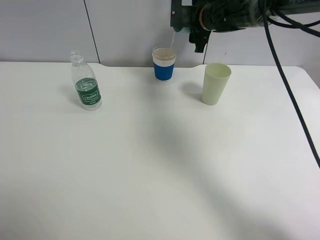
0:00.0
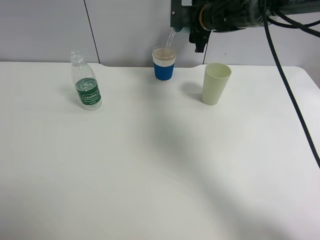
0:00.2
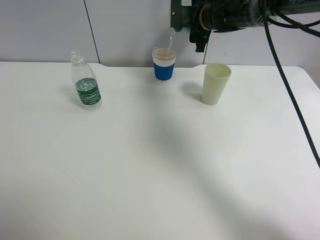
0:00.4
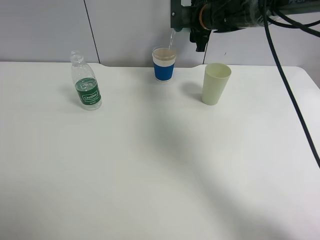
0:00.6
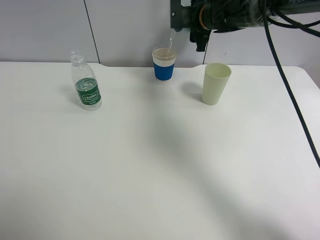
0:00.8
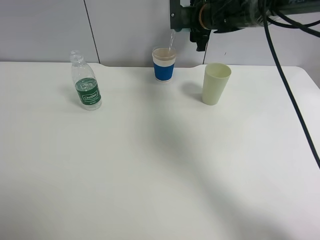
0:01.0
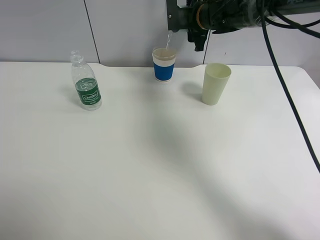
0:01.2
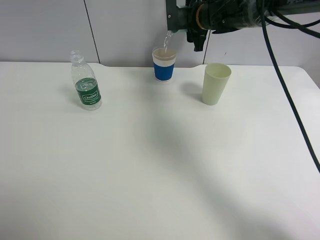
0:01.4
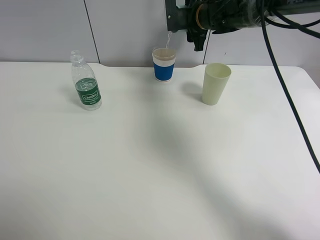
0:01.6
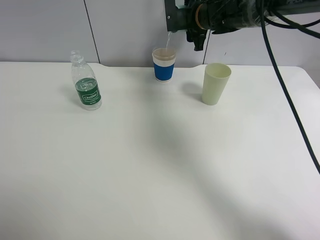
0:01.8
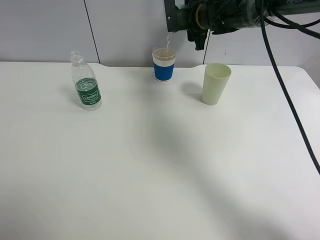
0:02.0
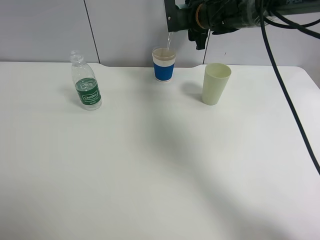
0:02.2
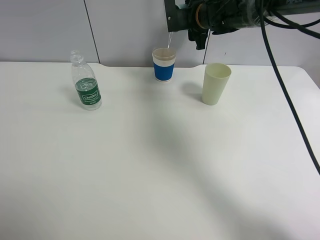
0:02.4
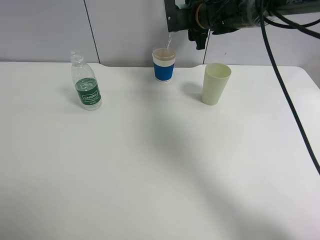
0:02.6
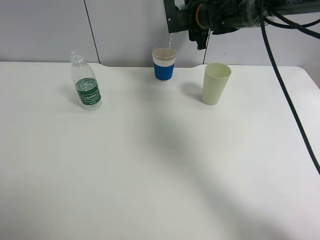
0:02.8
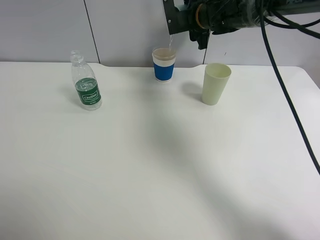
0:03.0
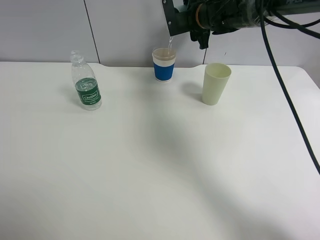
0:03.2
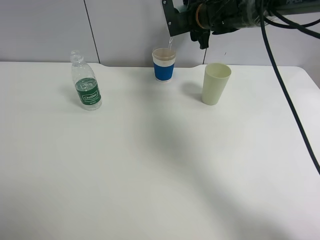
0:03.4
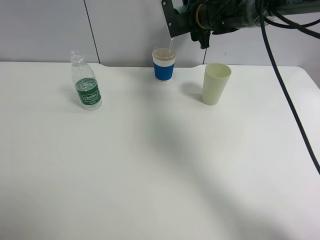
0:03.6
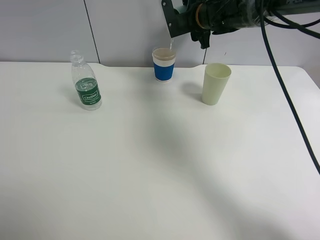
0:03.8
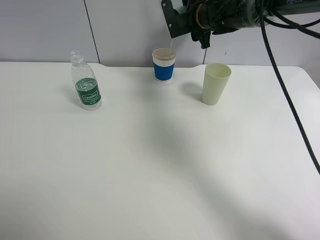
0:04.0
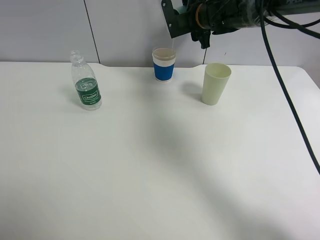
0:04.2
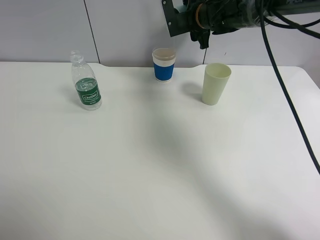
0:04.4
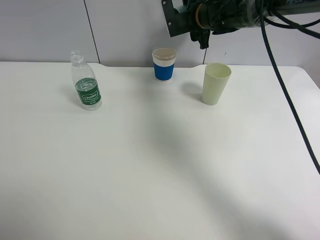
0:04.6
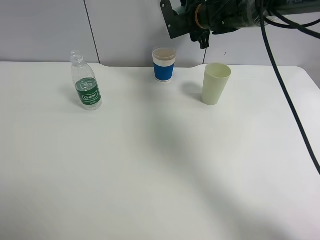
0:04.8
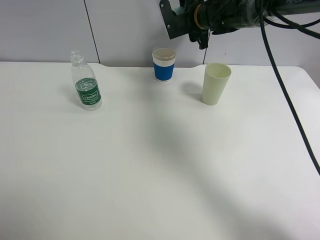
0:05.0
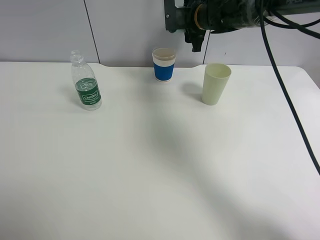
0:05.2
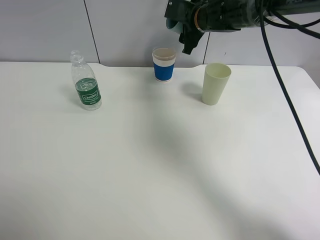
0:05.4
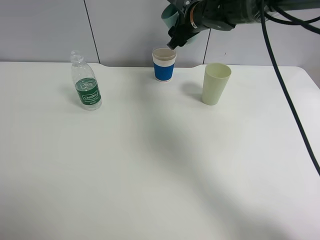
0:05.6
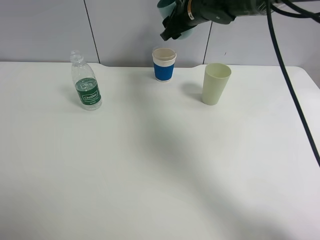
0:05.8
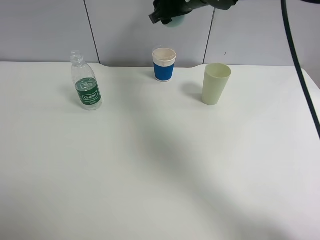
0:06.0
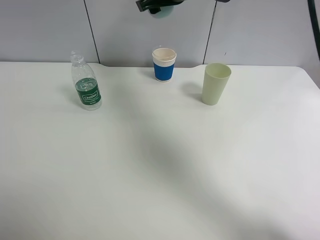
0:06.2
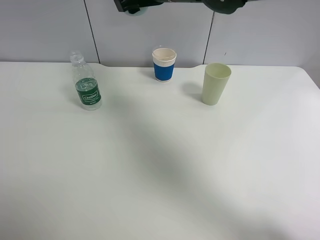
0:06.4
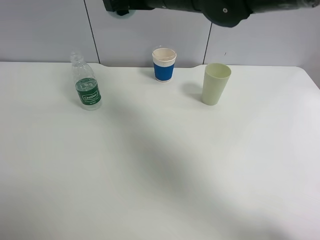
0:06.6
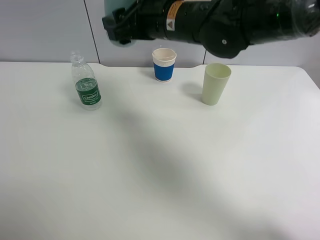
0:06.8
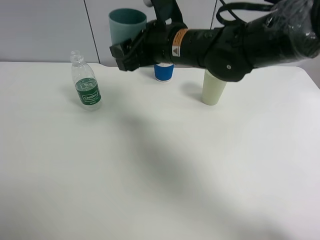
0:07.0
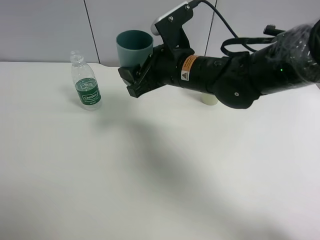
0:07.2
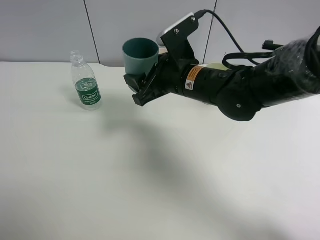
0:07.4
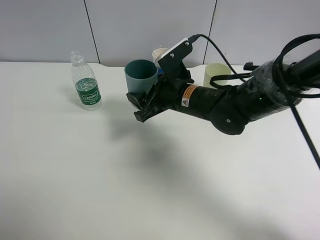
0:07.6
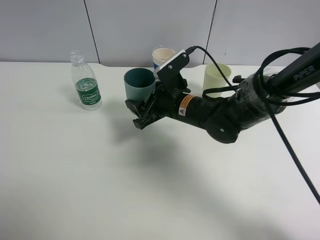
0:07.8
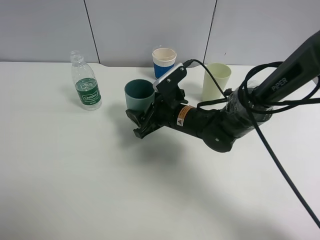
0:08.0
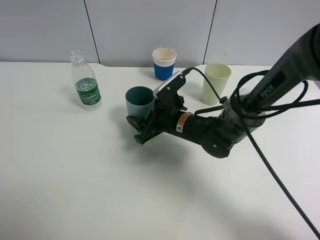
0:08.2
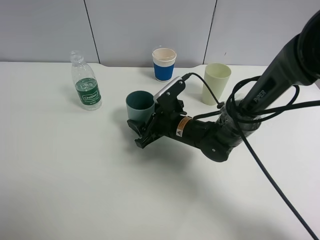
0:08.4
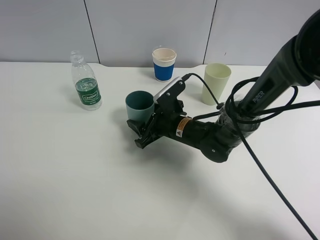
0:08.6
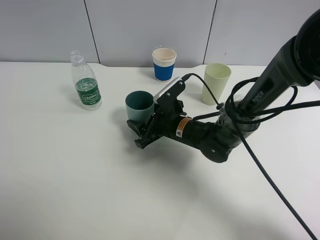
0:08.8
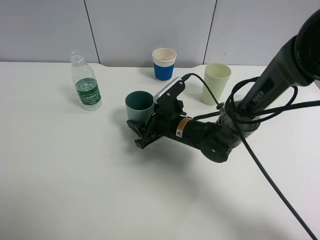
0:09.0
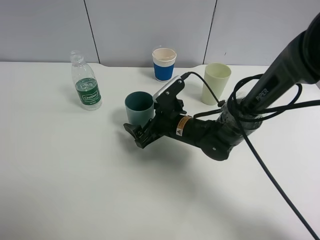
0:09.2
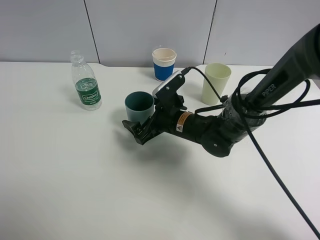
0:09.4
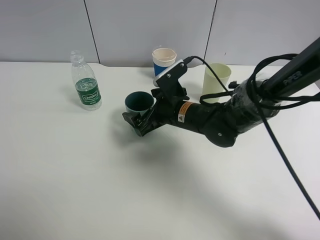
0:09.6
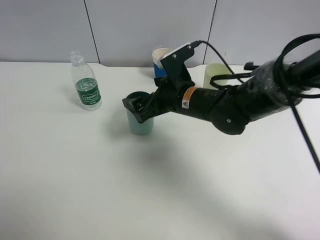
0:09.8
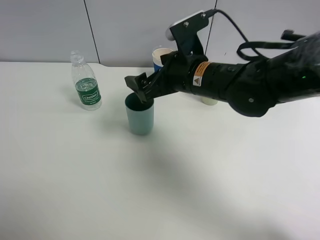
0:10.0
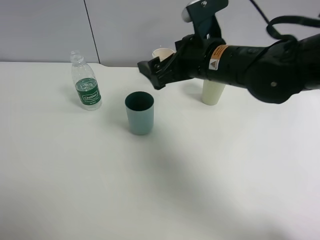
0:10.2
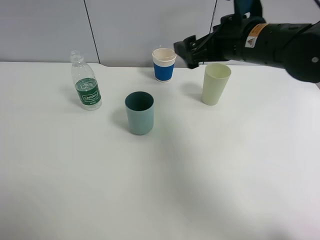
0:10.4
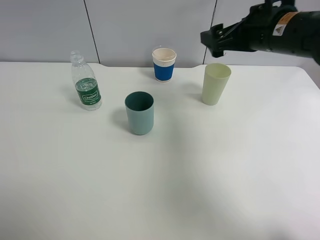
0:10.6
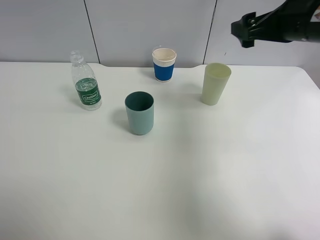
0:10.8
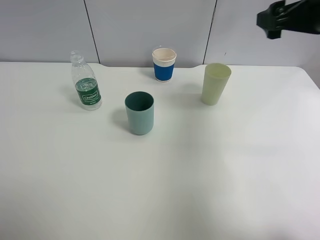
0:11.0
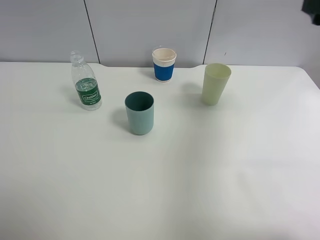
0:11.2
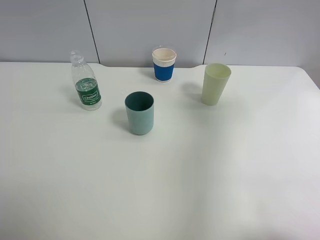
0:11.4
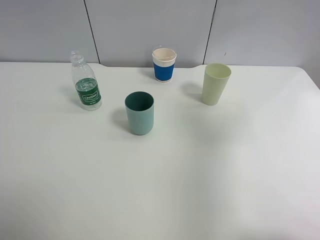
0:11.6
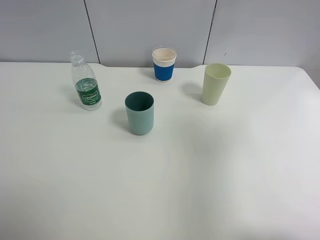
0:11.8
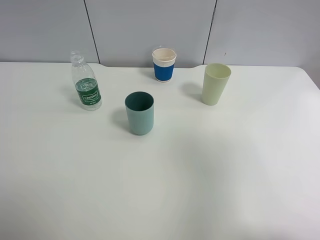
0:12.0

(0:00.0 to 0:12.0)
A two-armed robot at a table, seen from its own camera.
Task of the whole recording: use a clamp to hold the bottle of the drink, pour the beverage into a random cup, then clamp the cup containing the drink and pour the drink into another random cup.
Step, 0:00.0 - 0:05.0: Pour water into the paper cup with right gripper.
Step, 0:05.2 - 0:09.6: Place the blue plastic cup on the table with right gripper.
0:00.0 - 0:03.0: There are only small adjustments of the grippers.
0:04.4 - 0:06.0: The right gripper travels upward and backward by approximately 10 cm.
0:06.0 - 0:07.6: The right gripper heads downward and backward, covering some 20 cm.
0:07.6 - 0:09.0: The right gripper is displaced downward by roughly 10 cm.
0:09.0 - 0:10.4: The right gripper is displaced upward and to the right by roughly 25 cm, and opens up.
0:10.4 - 0:12.0: The right gripper travels backward, to the right and upward by roughly 30 cm.

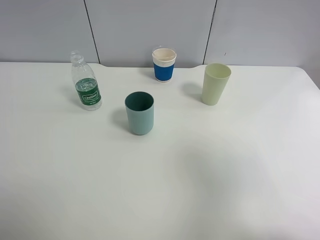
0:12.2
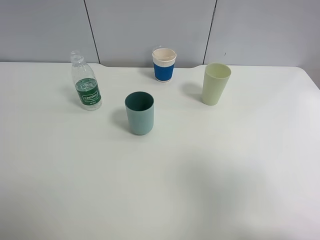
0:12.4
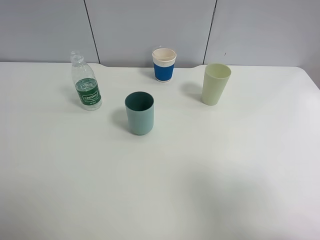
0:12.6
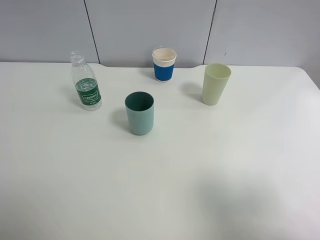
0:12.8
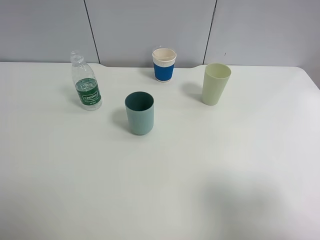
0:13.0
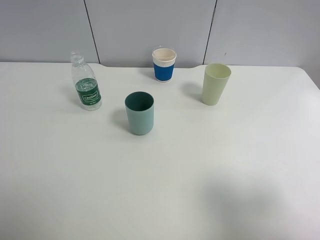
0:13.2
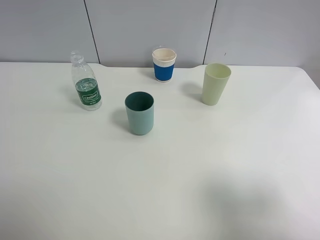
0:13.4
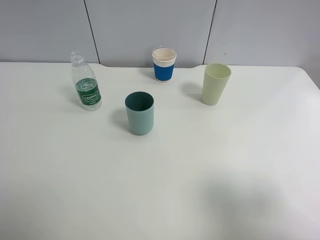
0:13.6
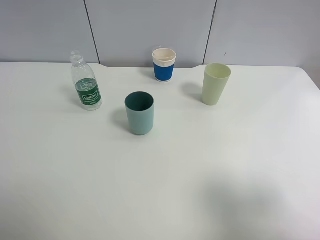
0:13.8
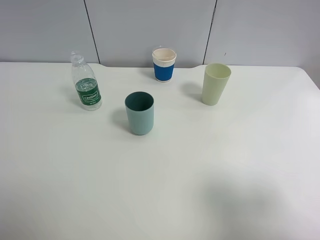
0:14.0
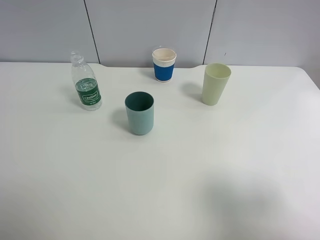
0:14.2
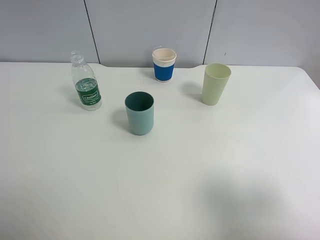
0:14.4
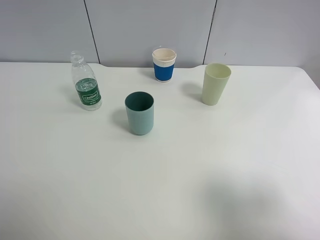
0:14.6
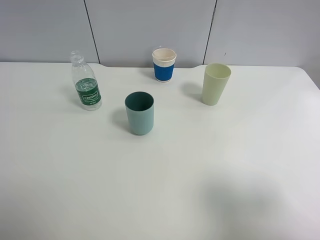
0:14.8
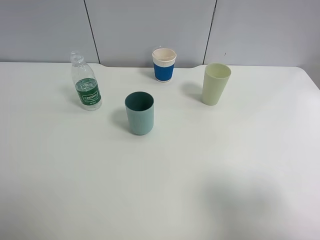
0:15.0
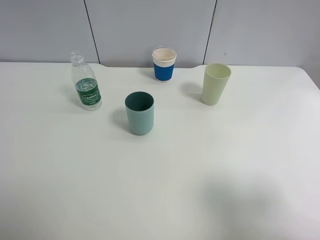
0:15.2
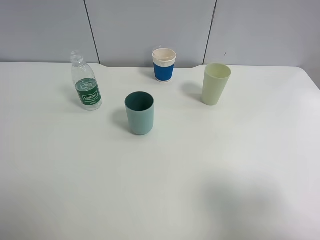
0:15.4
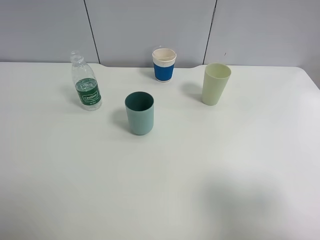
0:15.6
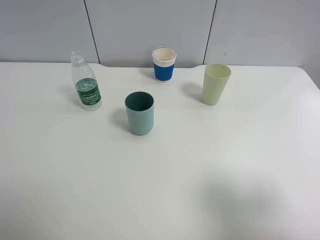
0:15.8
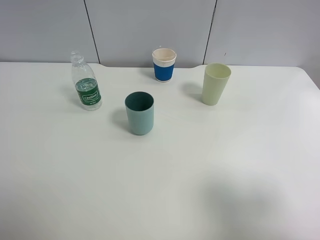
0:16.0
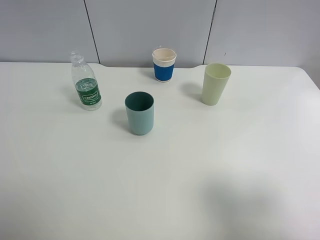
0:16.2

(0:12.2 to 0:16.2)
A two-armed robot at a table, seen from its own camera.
Task of the whole recording: use a clamp to hold the bottle of the drink, pour the beverage into a random cup, then clamp the cup containing the drink and pour the drink into another random cup.
0:12.2 - 0:13.6: The right gripper travels downward by some 5 cm.
0:13.6 - 0:16.2: Both grippers stay put.
